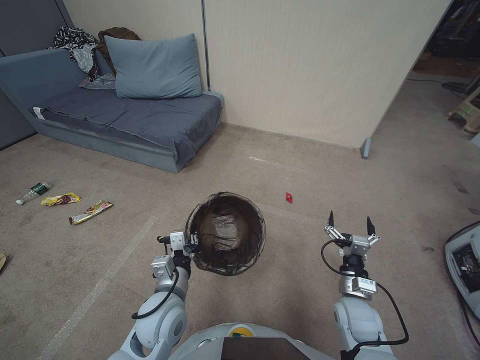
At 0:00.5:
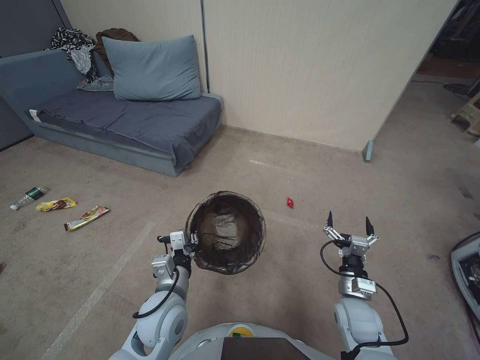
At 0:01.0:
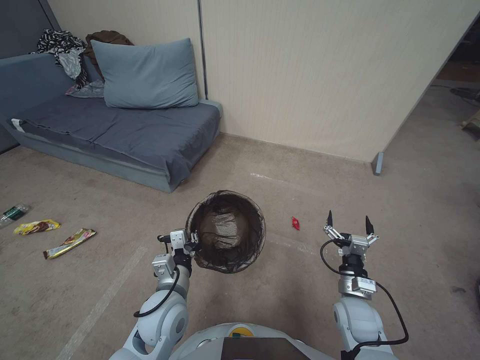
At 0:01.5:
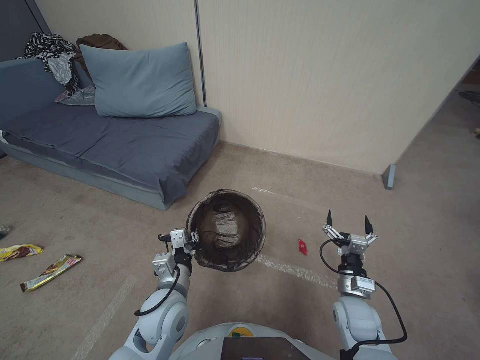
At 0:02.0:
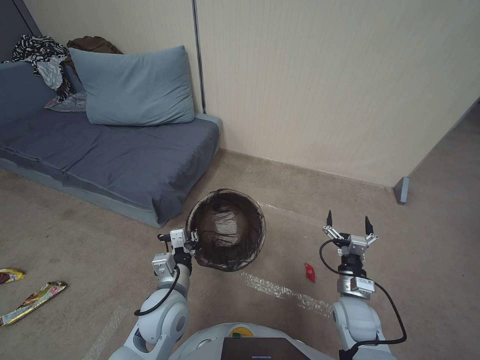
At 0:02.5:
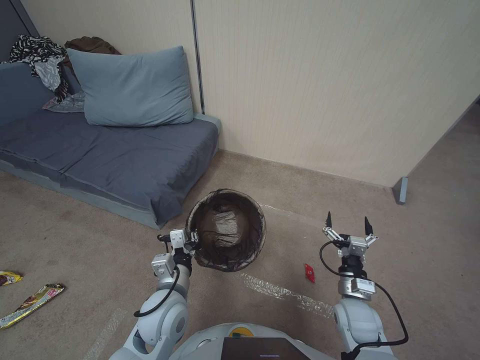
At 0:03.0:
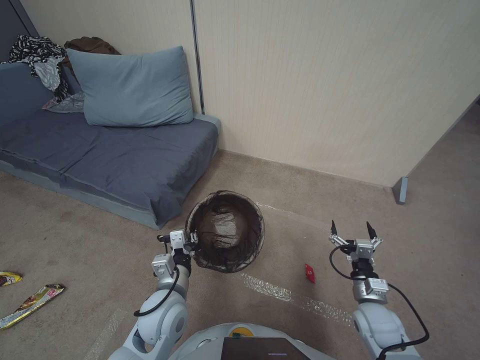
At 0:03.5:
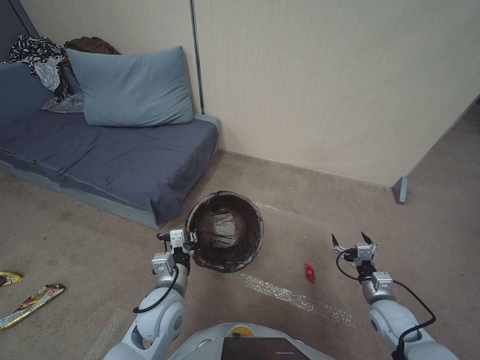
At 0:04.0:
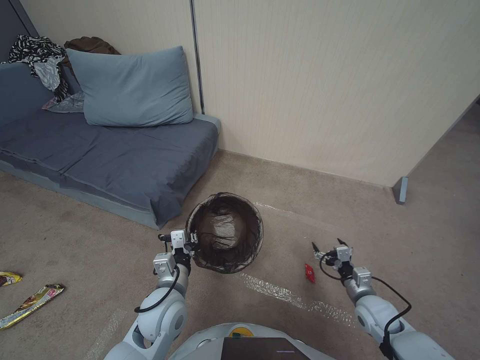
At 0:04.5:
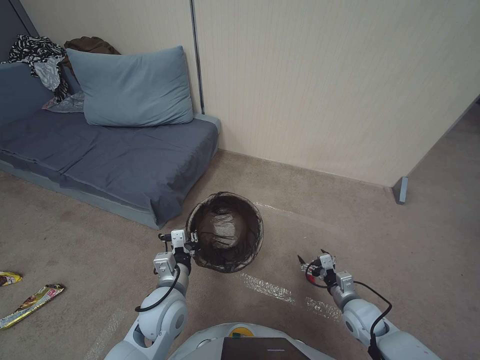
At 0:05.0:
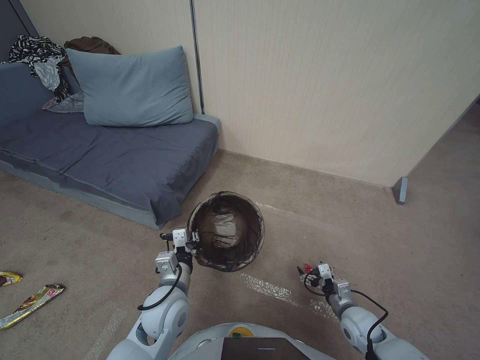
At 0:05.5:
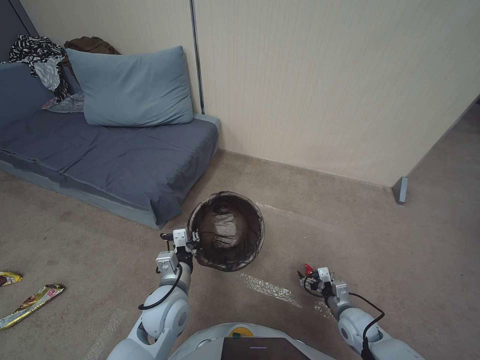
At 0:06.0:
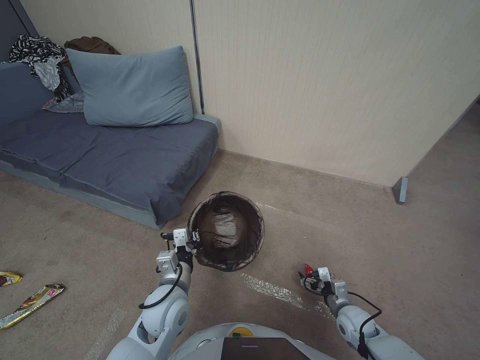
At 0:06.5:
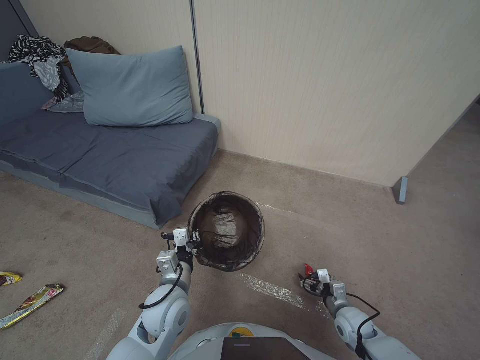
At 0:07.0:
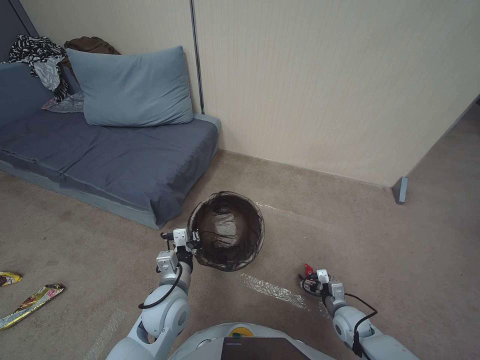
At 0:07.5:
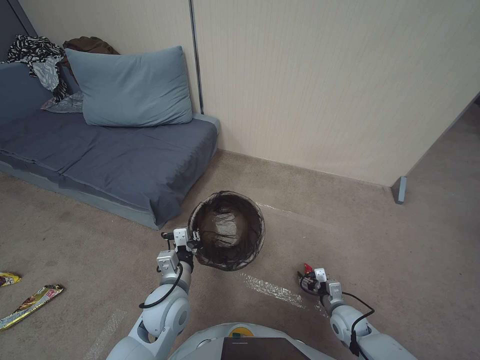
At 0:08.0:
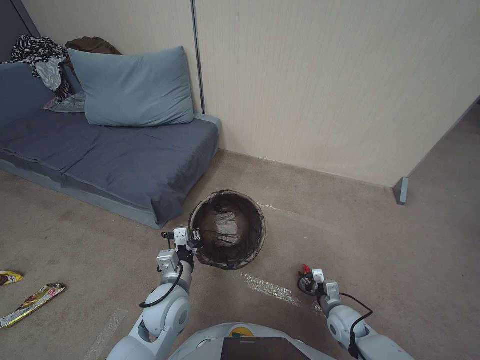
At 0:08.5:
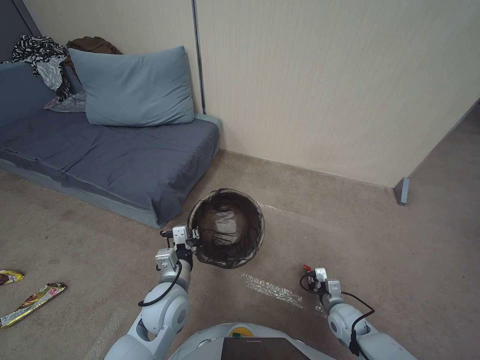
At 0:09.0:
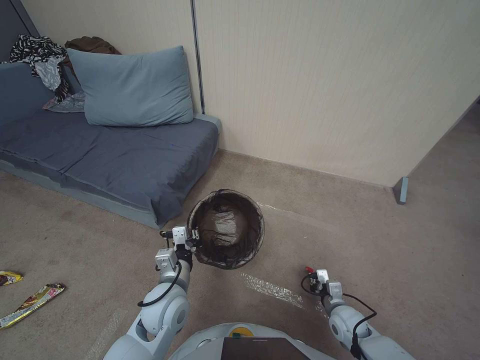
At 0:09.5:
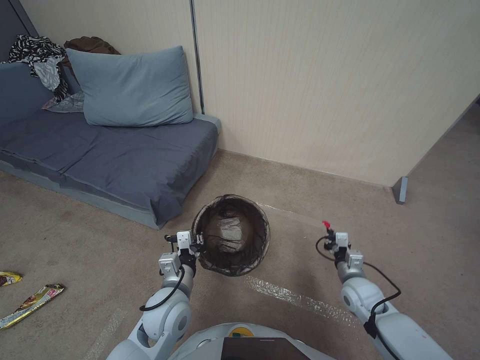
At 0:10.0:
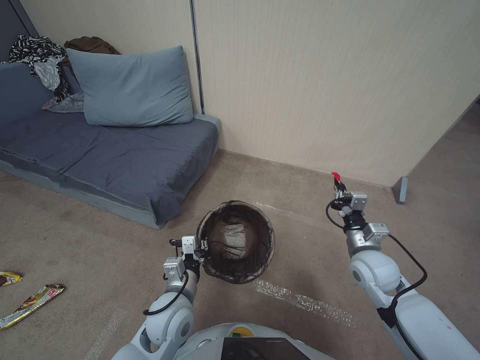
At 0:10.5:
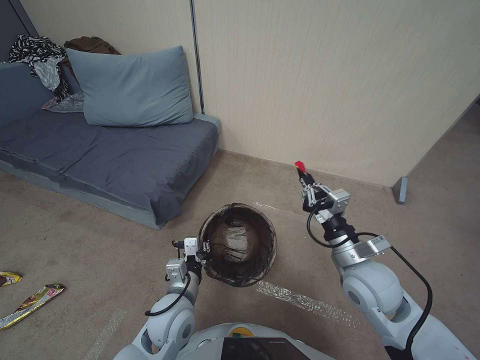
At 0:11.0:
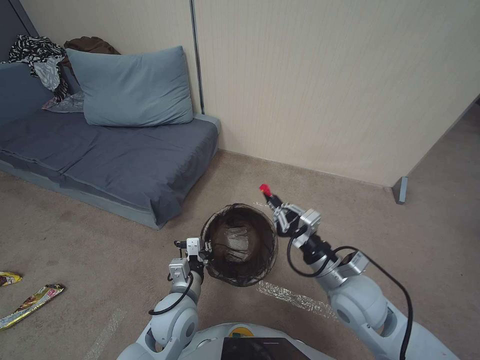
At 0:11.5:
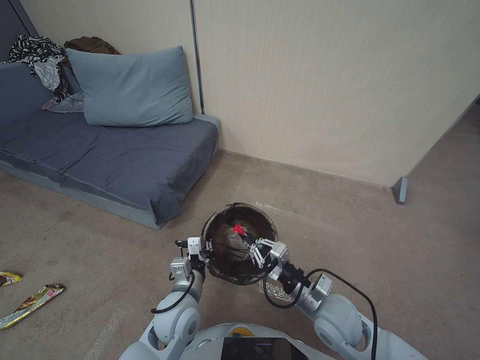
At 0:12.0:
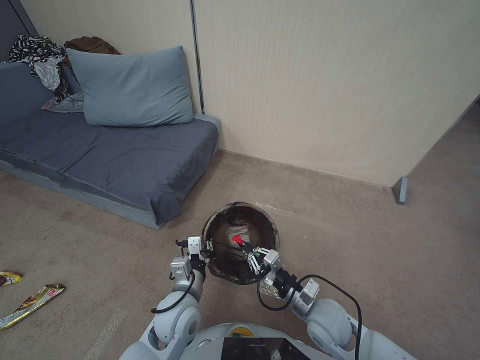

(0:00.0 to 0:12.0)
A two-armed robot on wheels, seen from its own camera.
Task of the whole recording: Pick up the trash bin, then pick up the garbage from the floor and place it into the trash bin.
0:02.0 - 0:04.0: The right gripper moves to the right, roughly 10 cm.
0:04.0 - 0:06.0: The right gripper travels downward by approximately 5 cm.
0:06.0 - 0:08.0: The right gripper closes its fingers.
0:08.0 - 0:10.0: The right gripper moves upward, roughly 20 cm, and closes.
0:10.0 - 0:12.0: The right gripper travels to the left, backward and downward by about 15 cm.

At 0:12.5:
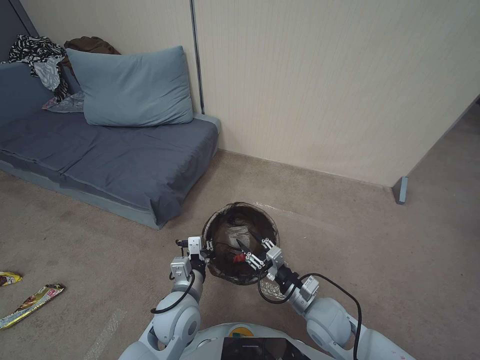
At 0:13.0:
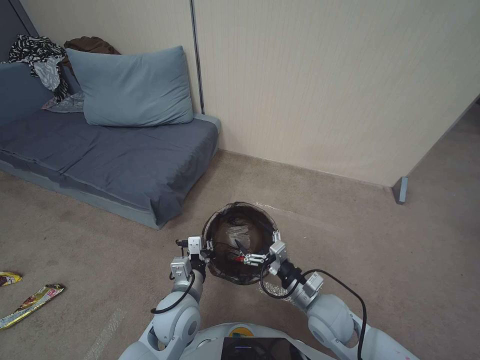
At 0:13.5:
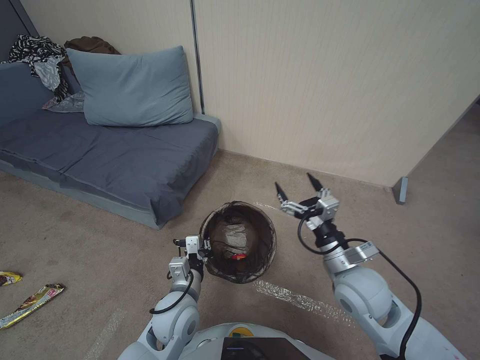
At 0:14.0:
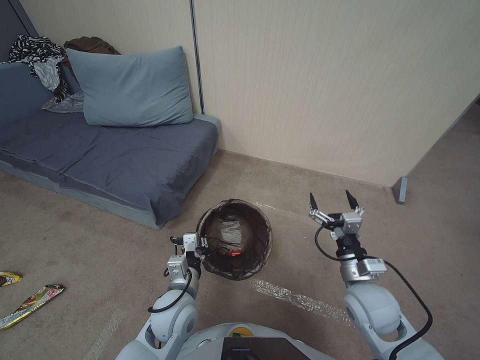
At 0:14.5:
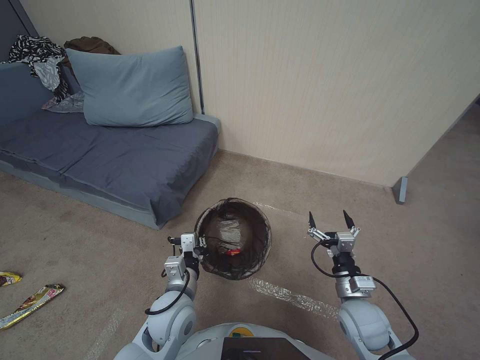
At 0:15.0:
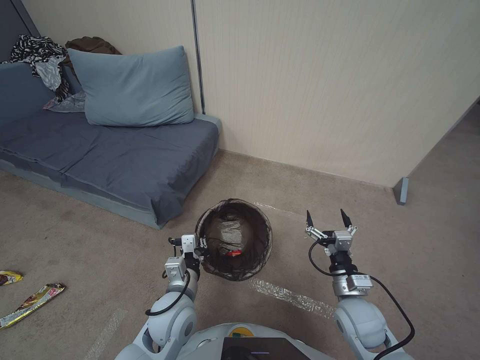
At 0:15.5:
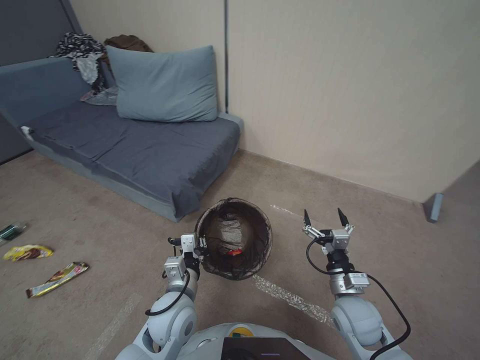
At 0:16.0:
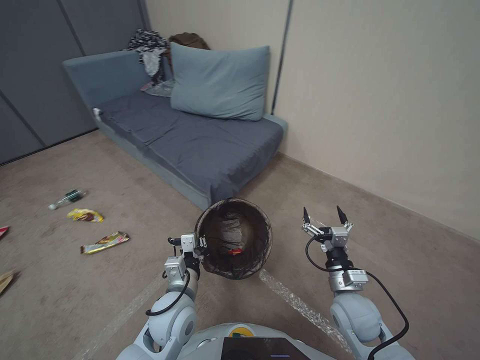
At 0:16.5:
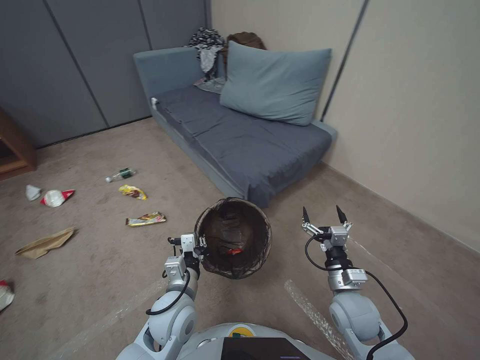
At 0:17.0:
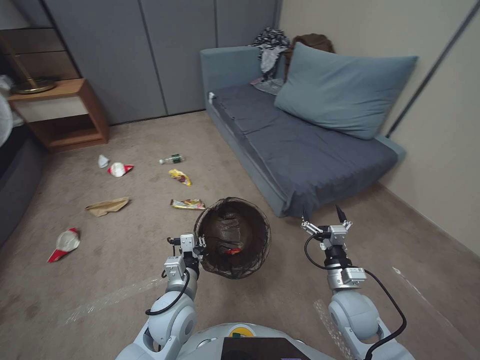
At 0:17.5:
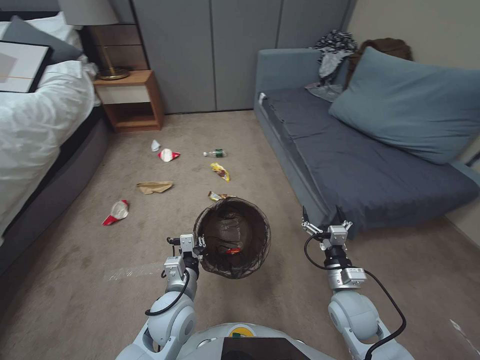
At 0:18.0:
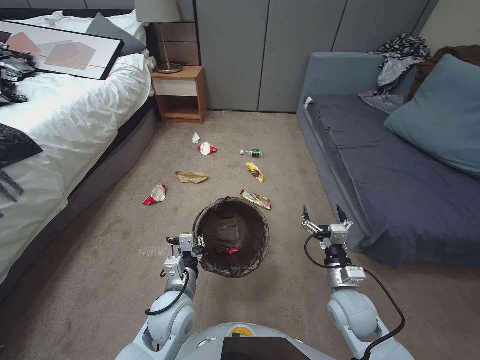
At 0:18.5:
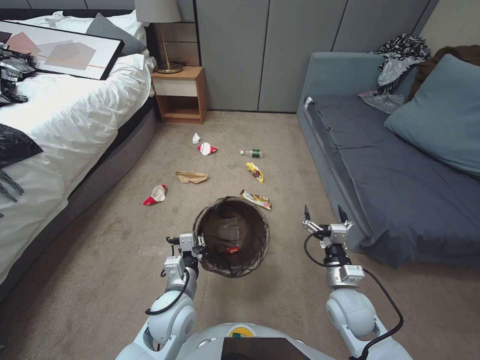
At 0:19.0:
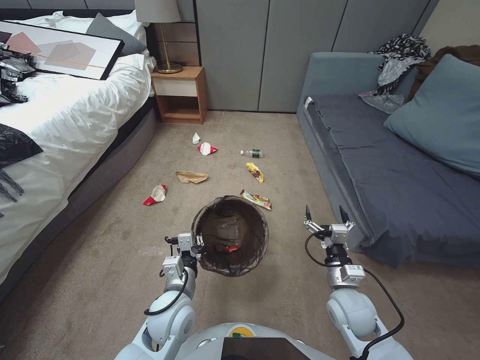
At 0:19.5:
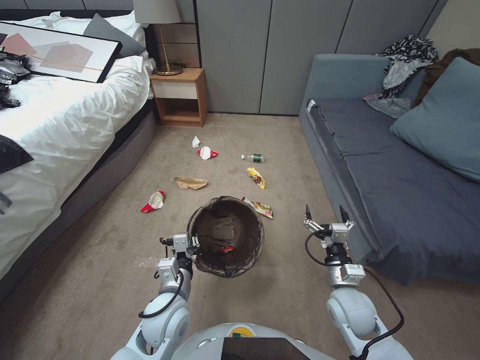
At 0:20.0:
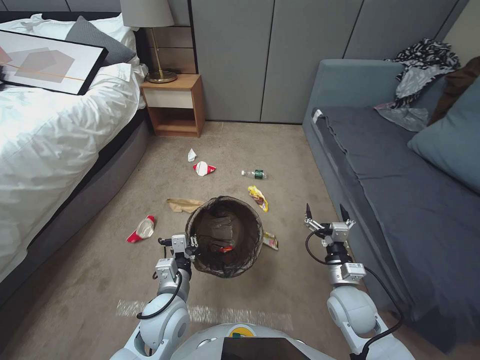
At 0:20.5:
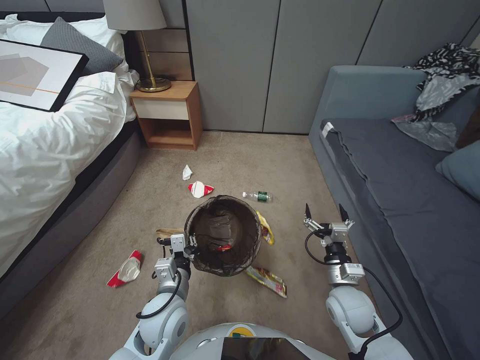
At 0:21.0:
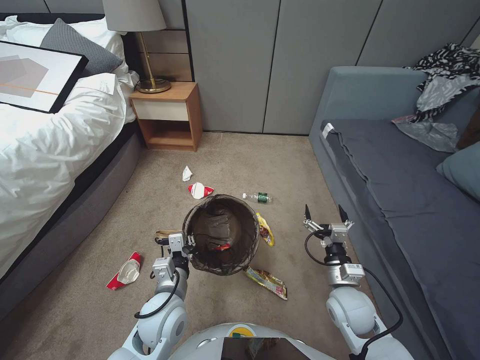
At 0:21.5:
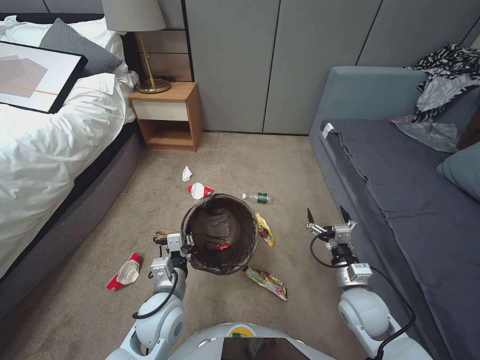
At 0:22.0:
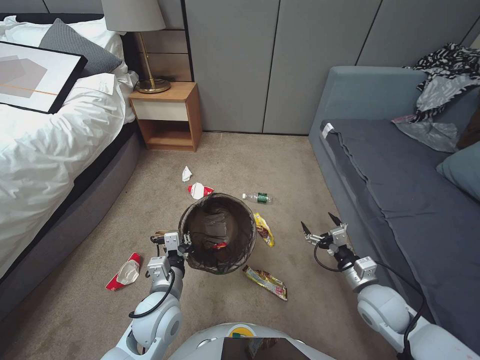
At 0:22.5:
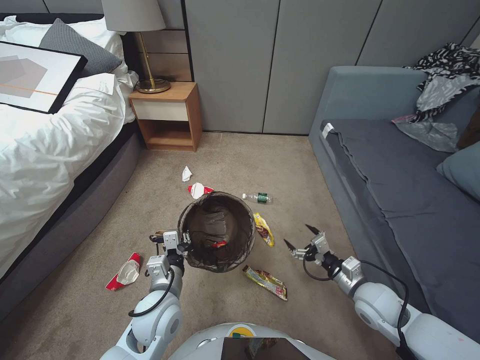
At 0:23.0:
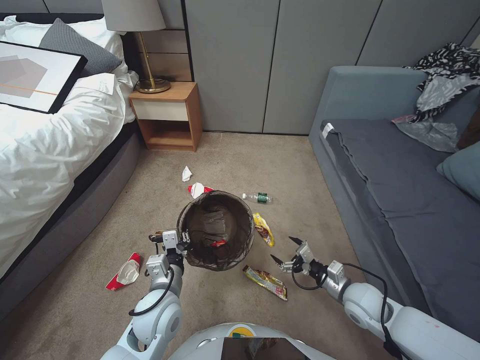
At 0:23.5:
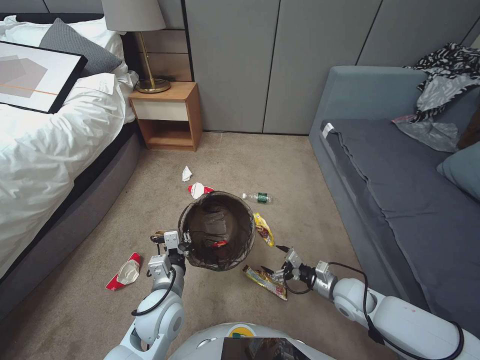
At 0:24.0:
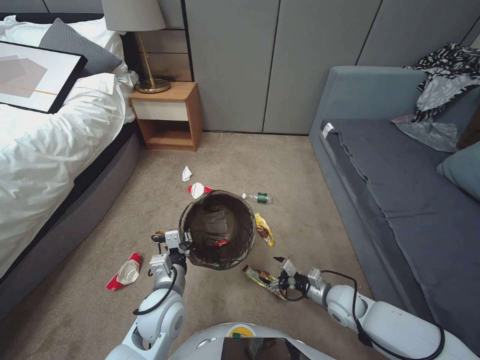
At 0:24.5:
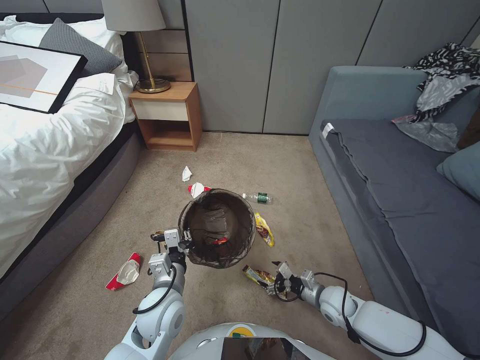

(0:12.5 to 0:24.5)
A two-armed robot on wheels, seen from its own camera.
Task of the whole recording: Pick up the trash bin, then pick up the garbage from the floor and place it into the trash bin.
0:12.5 - 0:14.5: The right gripper moves to the right, roughly 10 cm, moves roughly 10 cm upward and comes back, and opens.
0:20.5 - 0:22.5: The right gripper moves to the right, some 5 cm.
0:22.5 - 0:24.5: The right gripper shifts roughly 10 cm downward.

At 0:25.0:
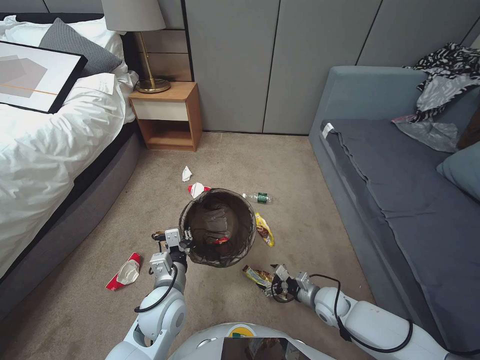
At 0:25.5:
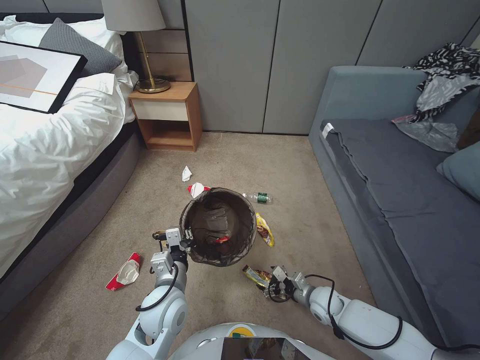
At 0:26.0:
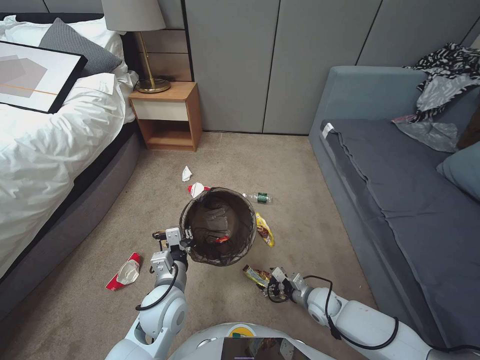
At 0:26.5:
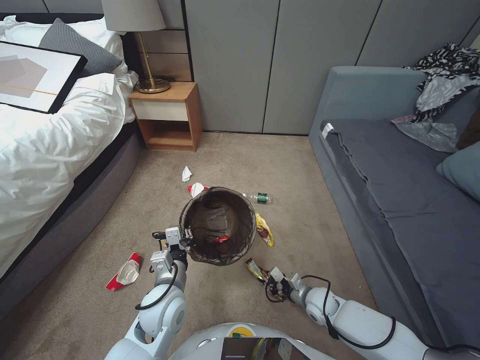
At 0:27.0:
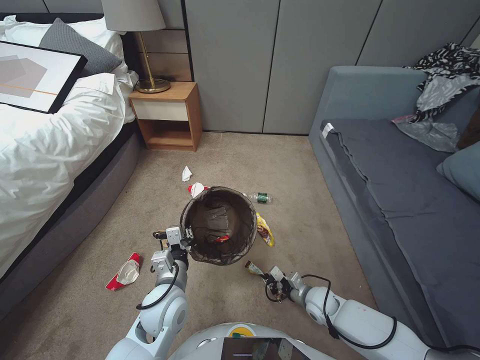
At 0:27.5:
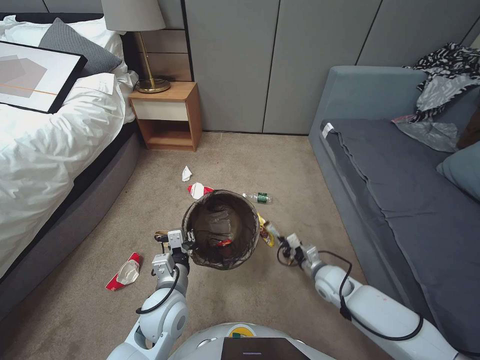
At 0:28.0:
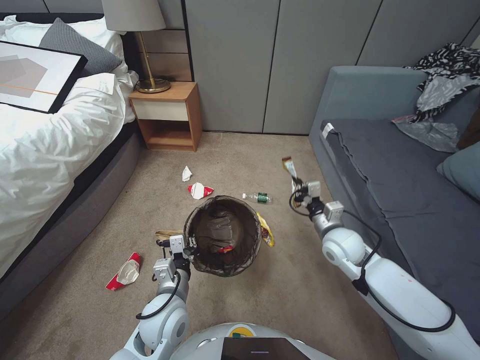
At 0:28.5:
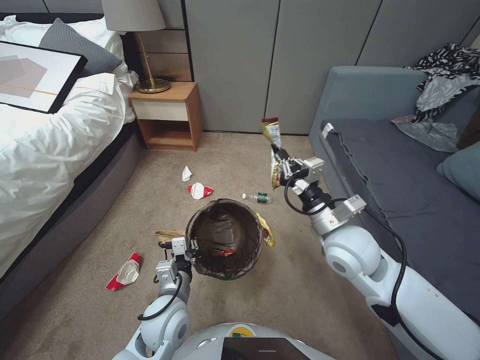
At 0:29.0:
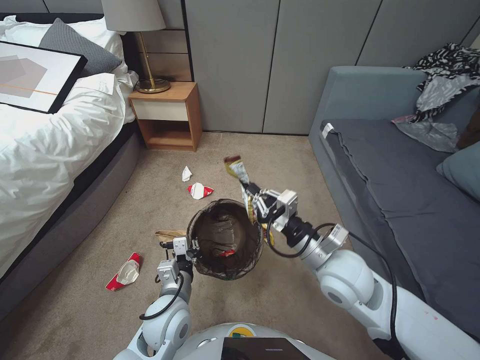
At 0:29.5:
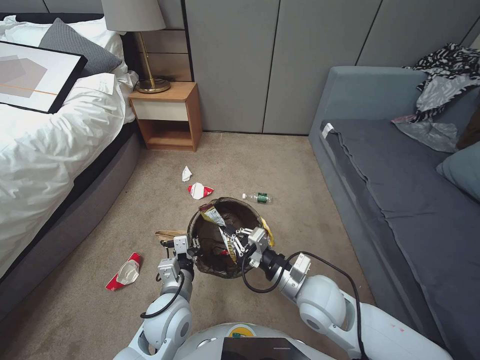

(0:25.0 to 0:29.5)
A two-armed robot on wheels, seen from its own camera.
Task of the whole recording: Pick up the trash bin, then pick up the garbage from the floor and place it into the trash bin.
0:25.0 - 0:27.0: The right gripper closes its fingers.
0:27.0 - 0:29.5: The right gripper travels upward by about 25 cm.
